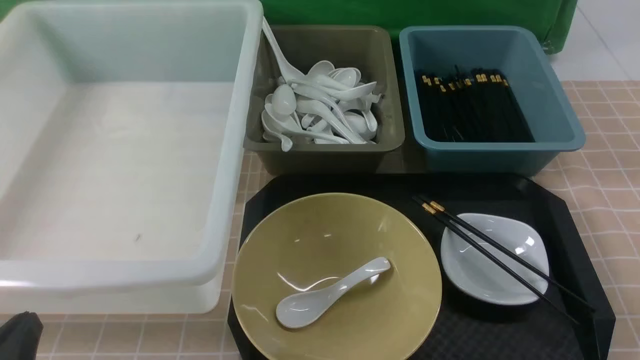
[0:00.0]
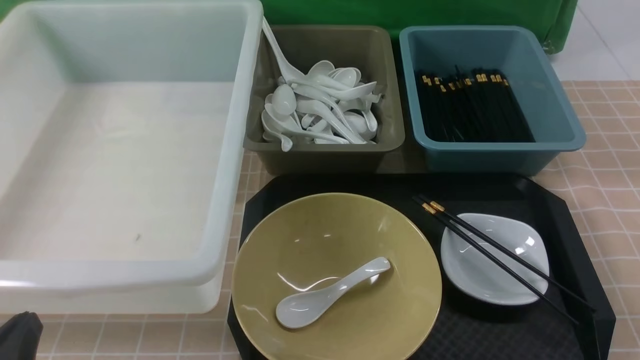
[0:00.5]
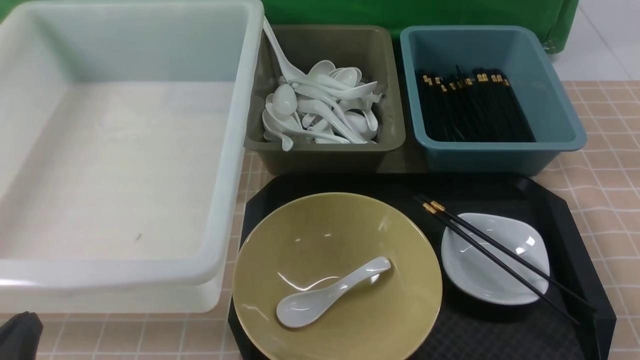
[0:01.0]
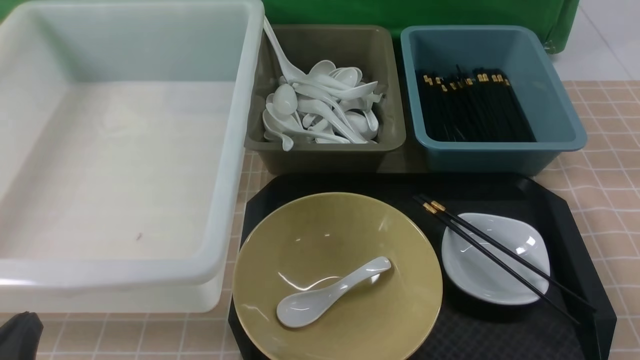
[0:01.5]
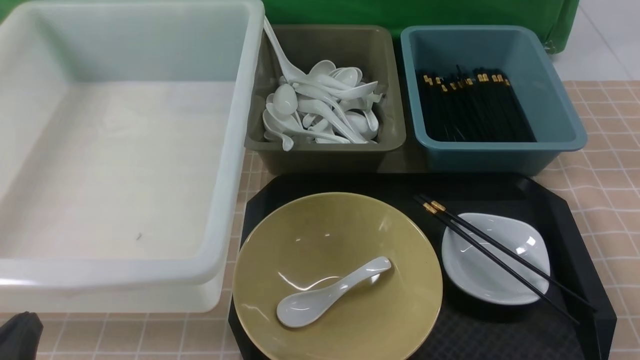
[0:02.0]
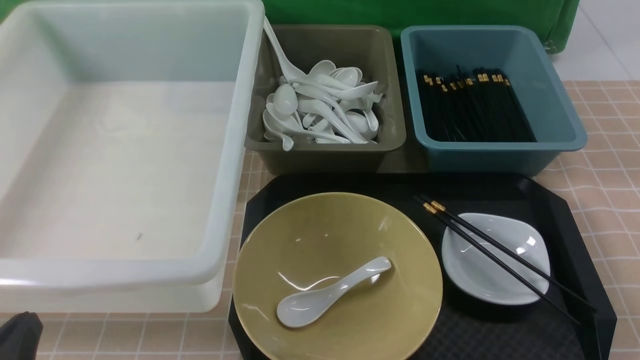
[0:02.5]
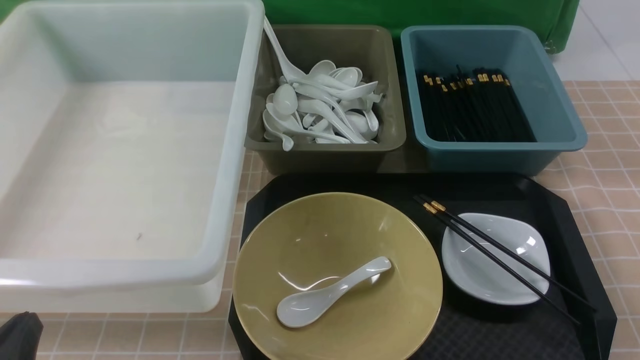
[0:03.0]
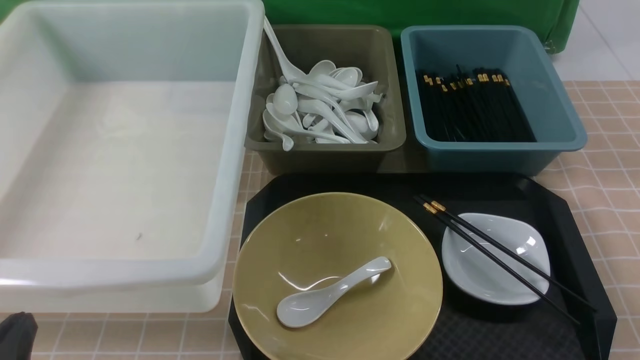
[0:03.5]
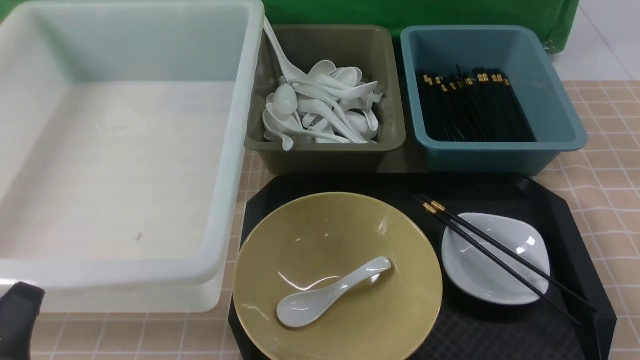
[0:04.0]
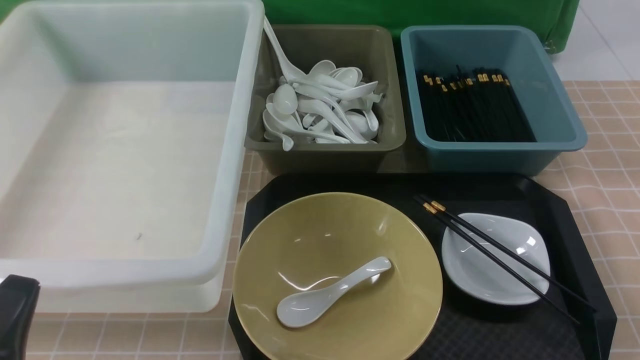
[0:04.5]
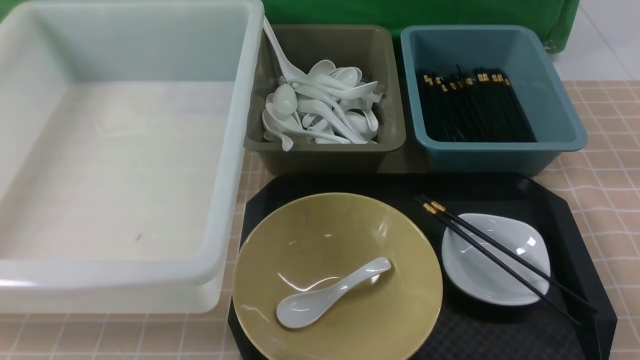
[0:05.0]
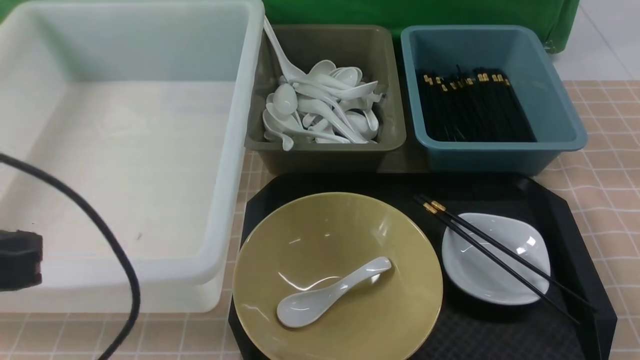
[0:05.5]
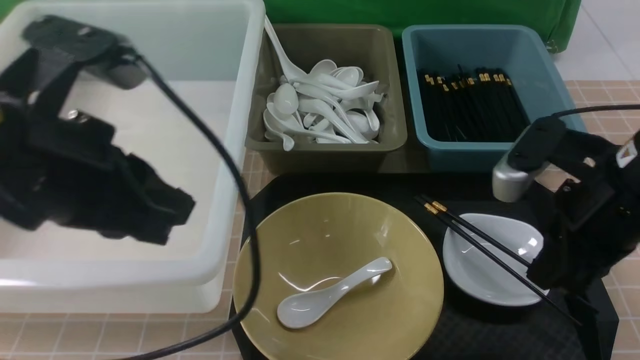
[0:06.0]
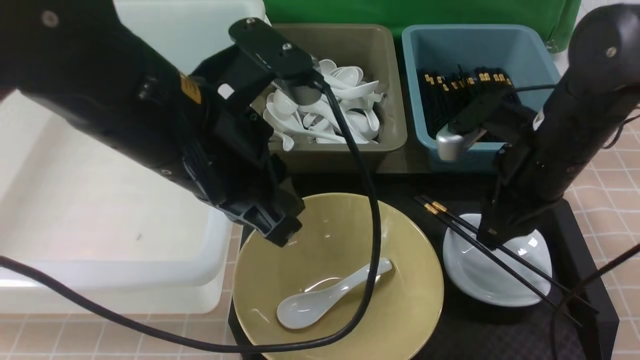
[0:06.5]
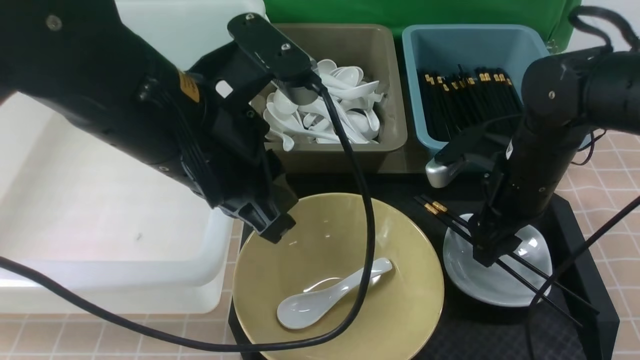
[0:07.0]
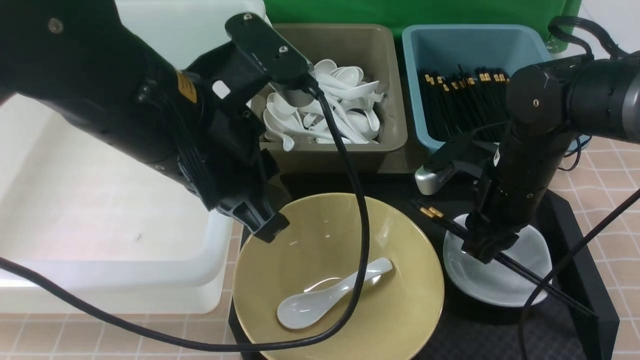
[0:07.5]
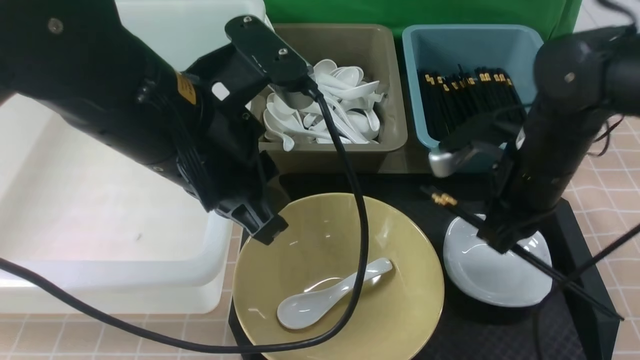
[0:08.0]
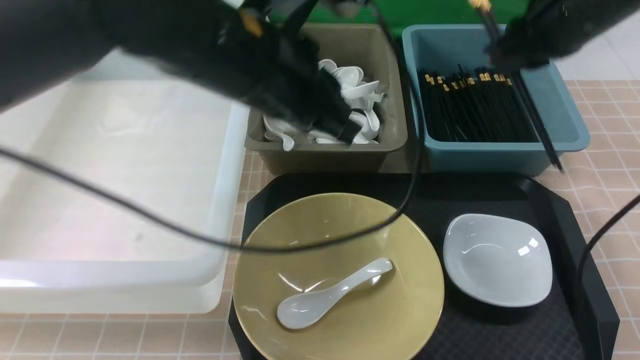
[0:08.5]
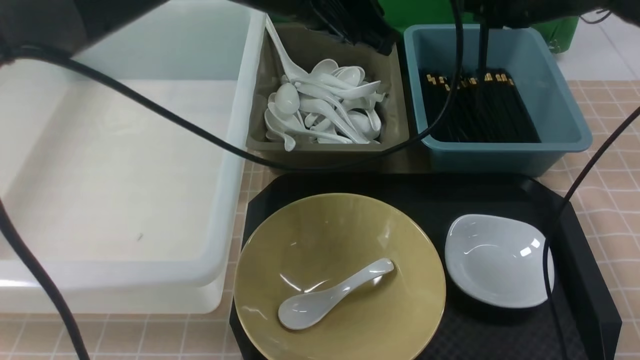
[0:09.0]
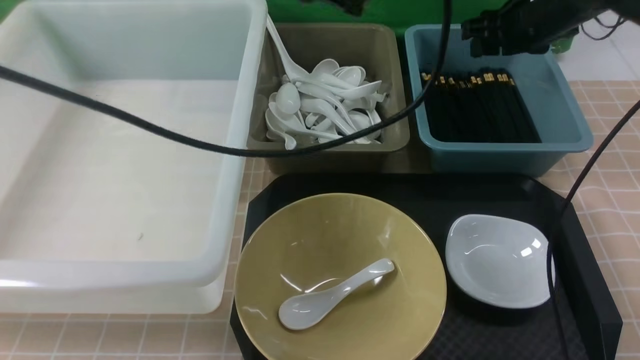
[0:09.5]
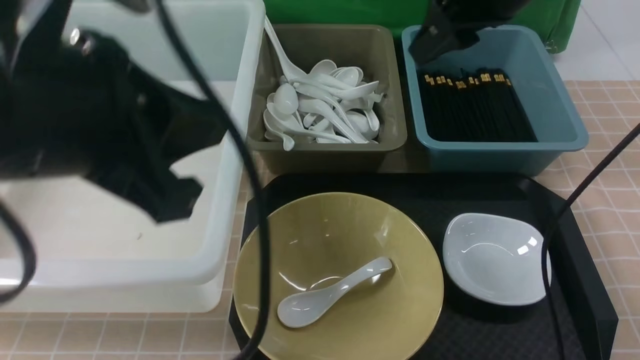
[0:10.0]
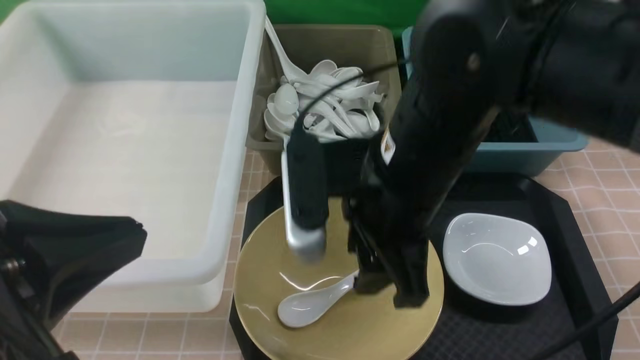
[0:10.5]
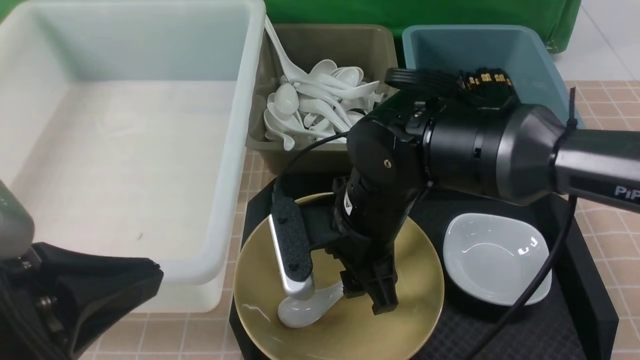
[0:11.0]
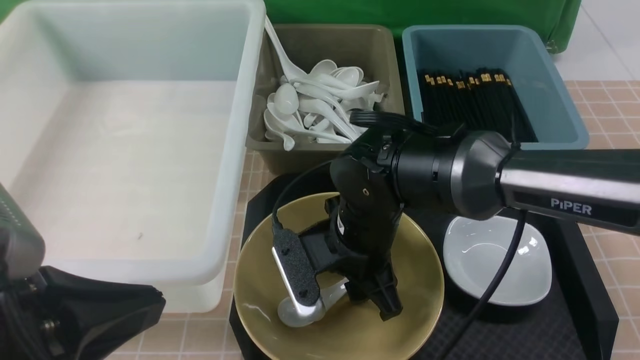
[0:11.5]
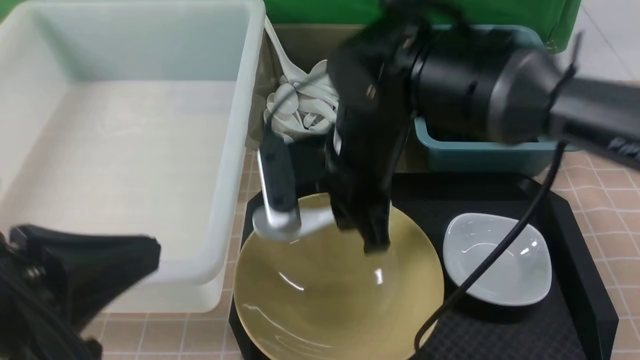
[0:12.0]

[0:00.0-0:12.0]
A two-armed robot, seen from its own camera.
Task of the whole recording: on brown table put chopsticks spoon bowls plates into blue grey white boxes.
Step, 0:00.0 to 0:08.0: use the right arm to grab the chopsticks.
Step, 0:08.5 to 0:09.0: use the right arm to put the chopsticks into the small storage box on the right.
Step, 0:09.5 to 0:11.5: use the right arm to grab the soup spoon in the middle.
0:00.0 to 0:02.0: Both grippers stay about where they are.
0:04.0 to 0:06.0: The left gripper shifts some 25 cm upward, forward and to the right, while the right gripper travels forward, upward and to the left by about 25 cm, and closes.
0:06.0 to 0:08.0: The right gripper is displaced forward by some 10 cm, and opens, then closes again; the left gripper travels to the right by some 5 cm.
0:08.0 to 0:10.0: The right gripper moves upward, approximately 15 cm, moves roughly 15 cm forward and comes back, and opens up; the left gripper shifts some 10 cm backward, upward and to the left.
0:10.0 to 0:12.0: The right gripper travels to the left, downward and backward by roughly 15 cm, and closes up. The left gripper shifts some 10 cm backward and downward.

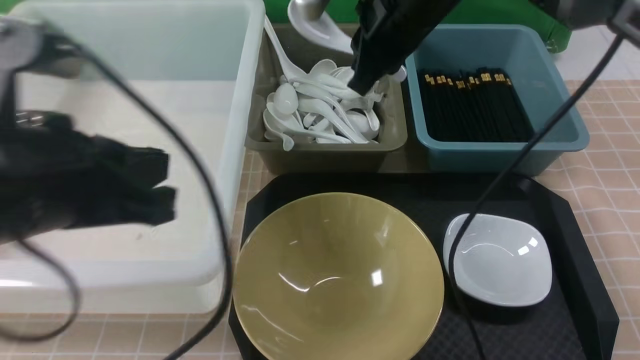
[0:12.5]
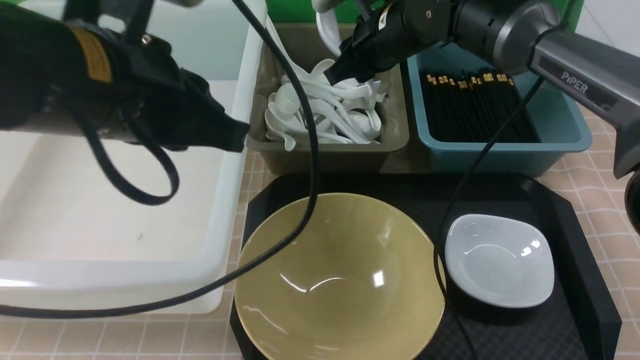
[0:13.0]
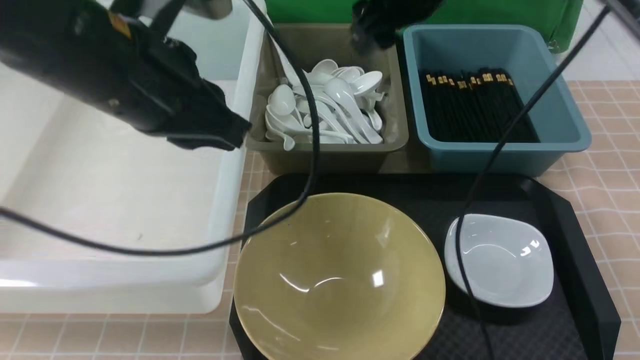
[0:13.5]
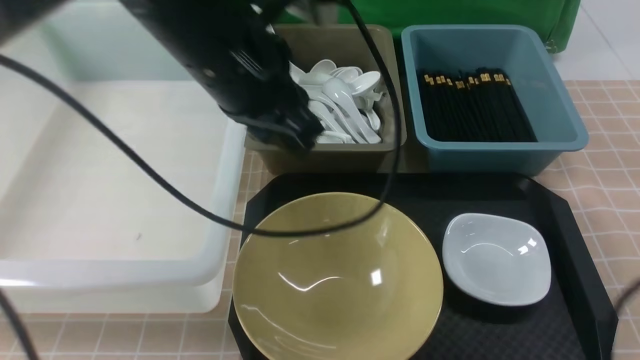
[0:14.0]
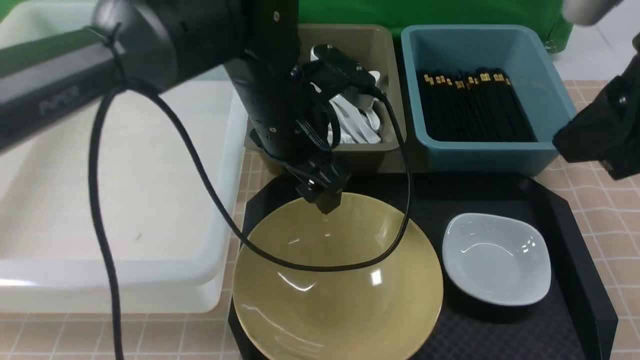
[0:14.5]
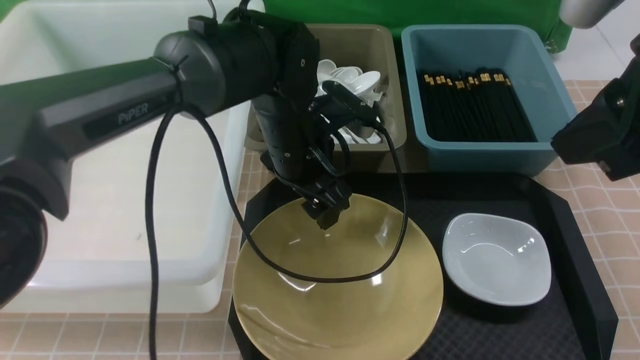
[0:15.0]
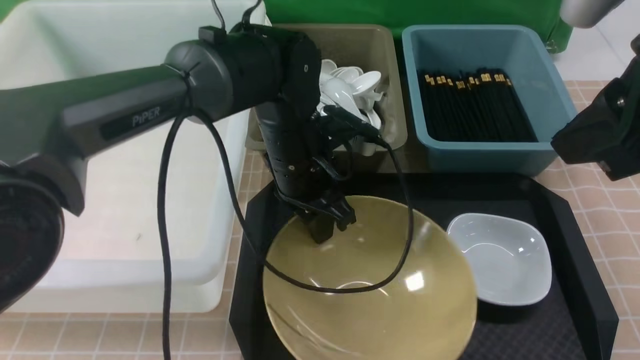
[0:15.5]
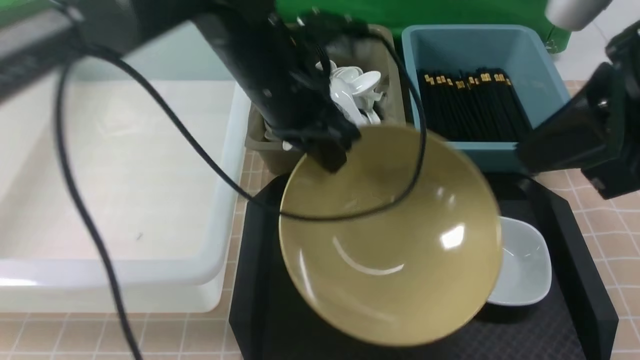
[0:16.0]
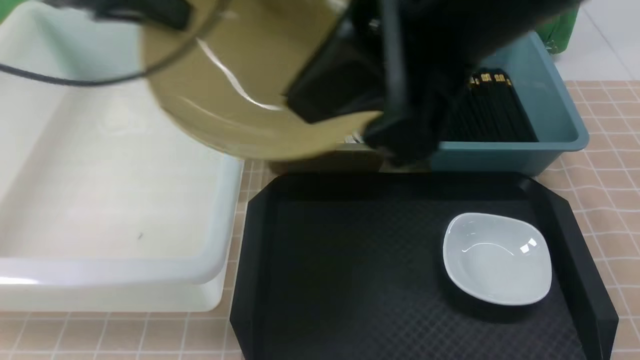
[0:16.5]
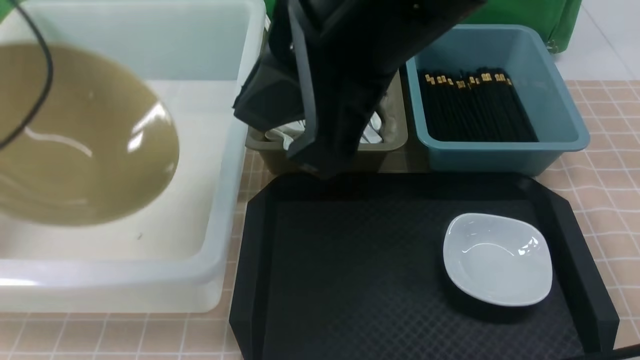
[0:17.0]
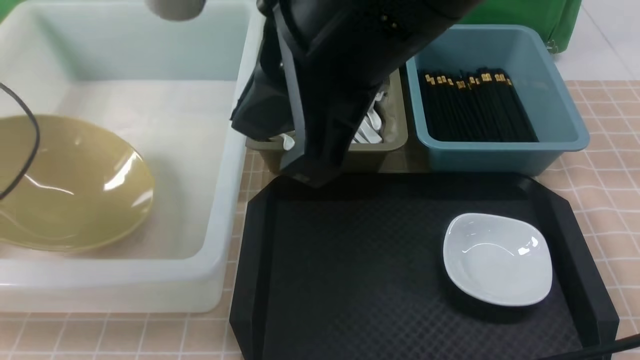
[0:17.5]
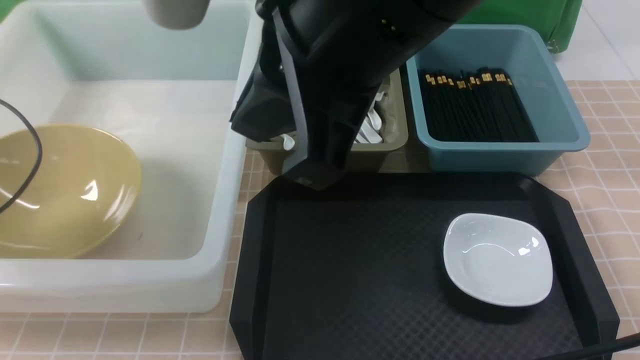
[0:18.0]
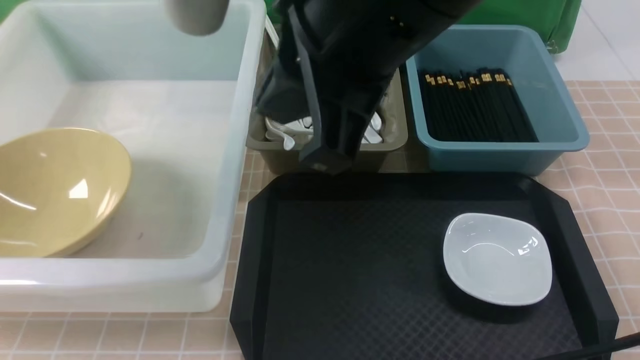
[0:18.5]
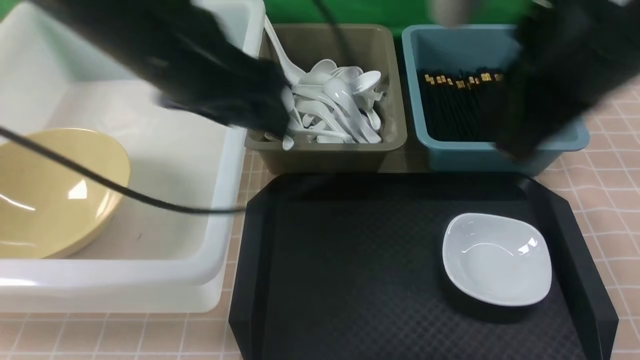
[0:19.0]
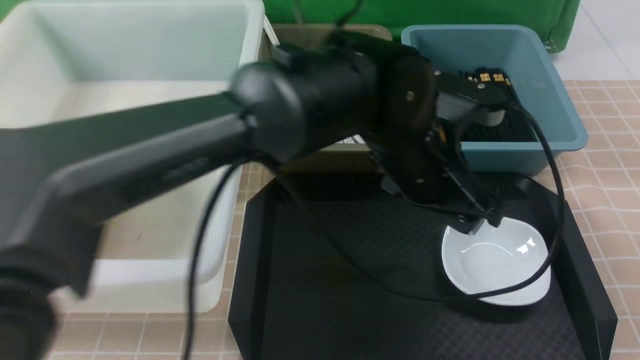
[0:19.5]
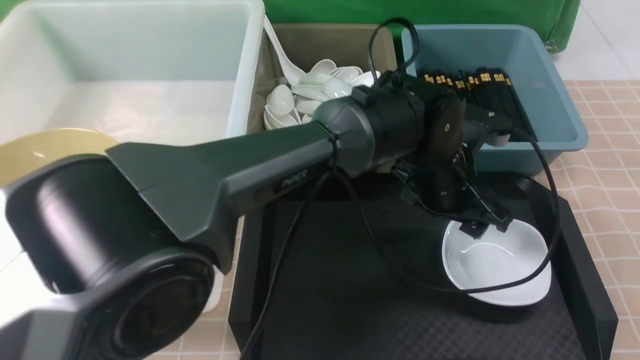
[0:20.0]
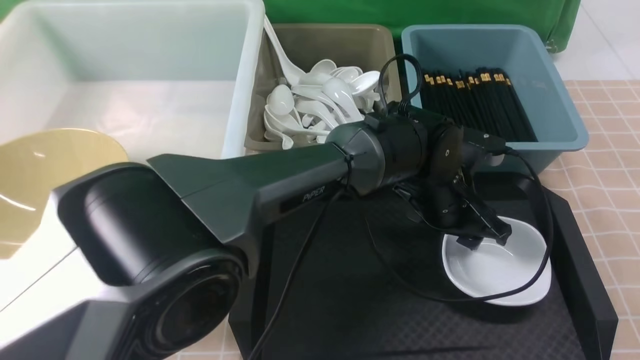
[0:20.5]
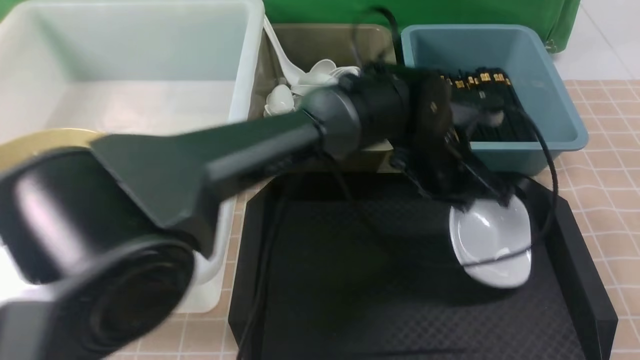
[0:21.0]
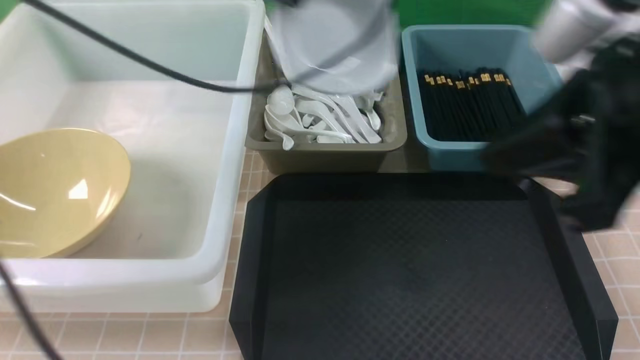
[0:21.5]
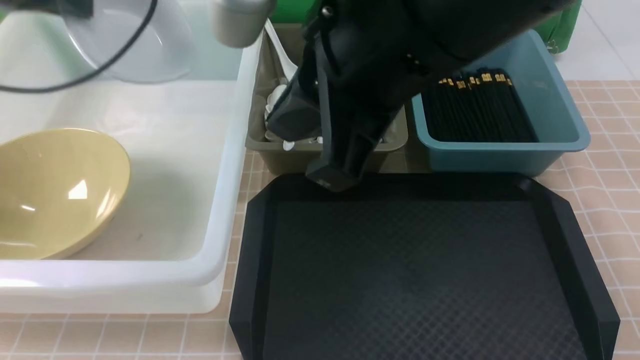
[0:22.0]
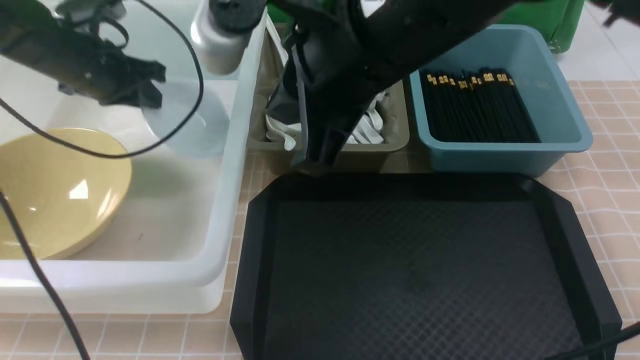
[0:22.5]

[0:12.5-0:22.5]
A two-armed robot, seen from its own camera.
Task of the whole recording: on brown table put chopsticks spoon bowls plates into blue grey white boxes.
Step, 0:13.5 to 0:15.5: use the left arm to grab the yellow noodle bowl on the left.
Step, 0:16.5 to 0:18.0: use the left arm to put the noodle bowl into the large storage box on the left.
Step, 0:18.5 to 0:20.5: use the left arm to grab the plate.
0:12.5 to 0:14.5: The right gripper shifts approximately 25 cm backward and to the right, and opens and closes again; the left gripper heads forward, to the right and downward, covering about 25 cm, and opens.
0:14.5 to 0:16.5: The right gripper is displaced to the left and upward by about 15 cm, and closes. Meanwhile the left gripper goes about 25 cm to the left and upward, and closes.
0:16.5 to 0:18.5: The left gripper is displaced to the left and backward by about 10 cm, and opens up.
0:18.5 to 0:20.5: The left gripper shifts some 50 cm to the right and downward, and closes its fingers, while the right gripper heads to the right and backward, covering approximately 25 cm.
0:20.5 to 0:22.5: The right gripper travels to the left and forward by approximately 25 cm; the left gripper heads to the left, covering roughly 40 cm, and closes.
